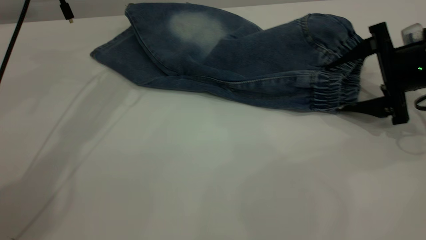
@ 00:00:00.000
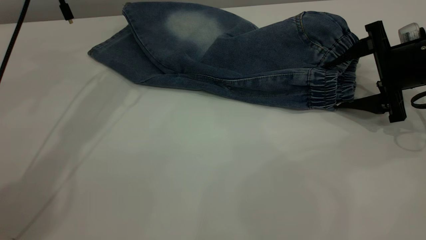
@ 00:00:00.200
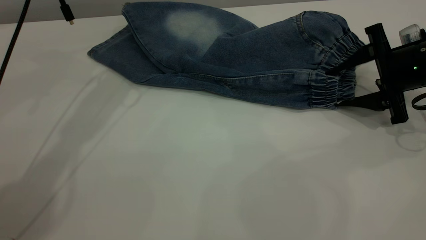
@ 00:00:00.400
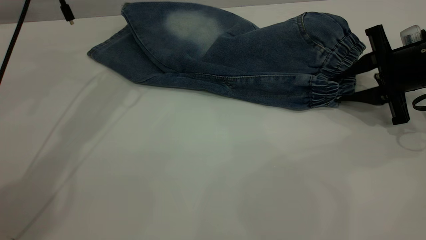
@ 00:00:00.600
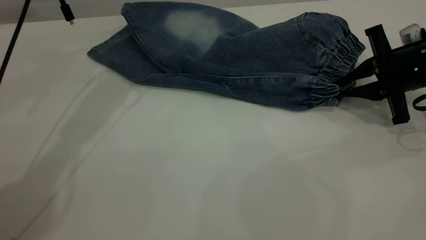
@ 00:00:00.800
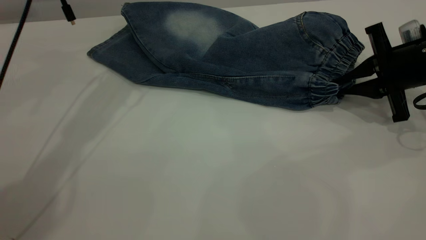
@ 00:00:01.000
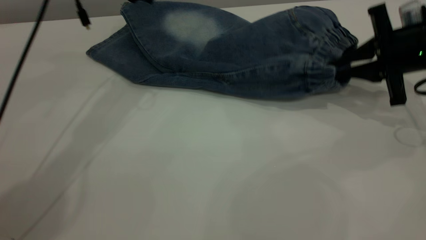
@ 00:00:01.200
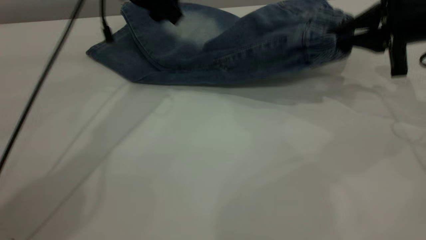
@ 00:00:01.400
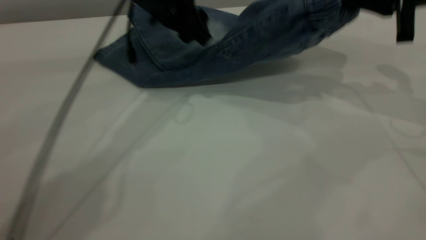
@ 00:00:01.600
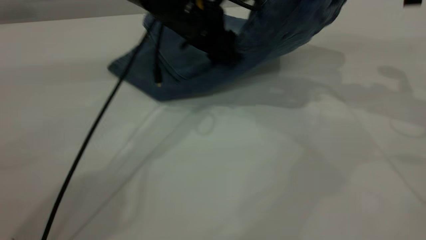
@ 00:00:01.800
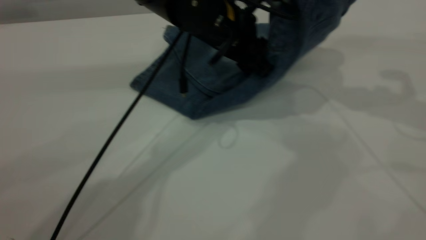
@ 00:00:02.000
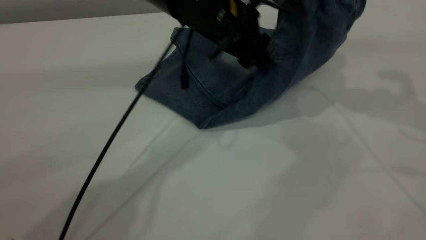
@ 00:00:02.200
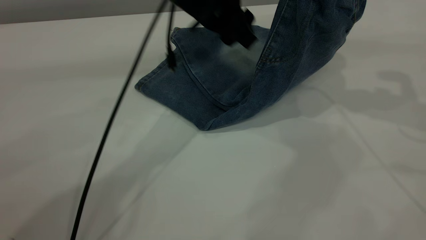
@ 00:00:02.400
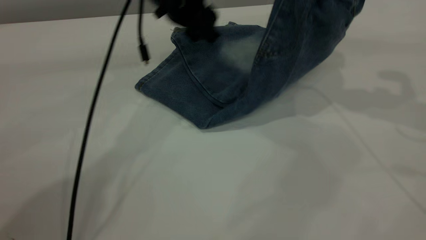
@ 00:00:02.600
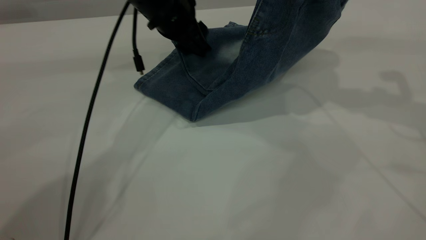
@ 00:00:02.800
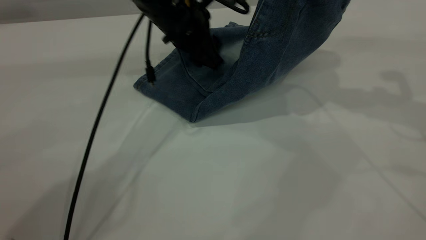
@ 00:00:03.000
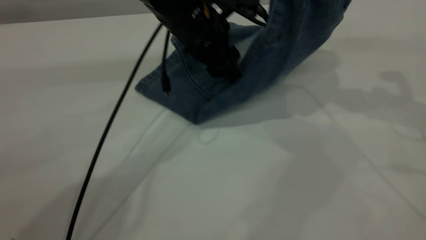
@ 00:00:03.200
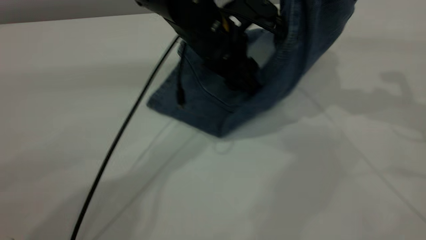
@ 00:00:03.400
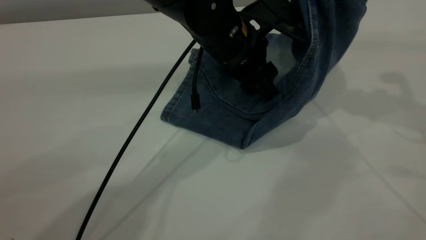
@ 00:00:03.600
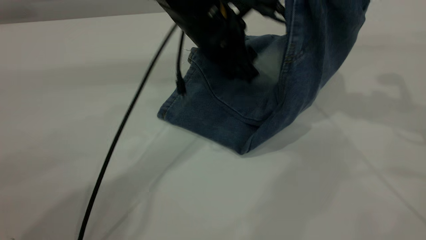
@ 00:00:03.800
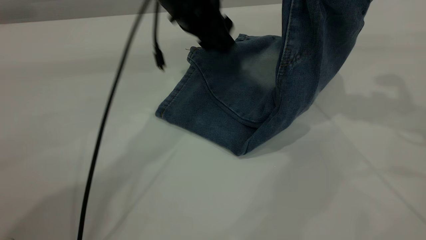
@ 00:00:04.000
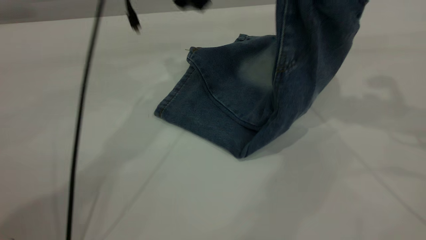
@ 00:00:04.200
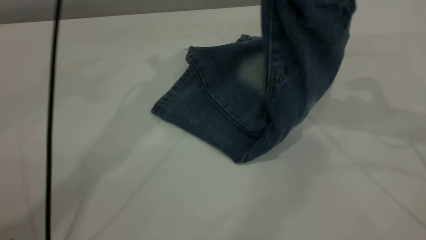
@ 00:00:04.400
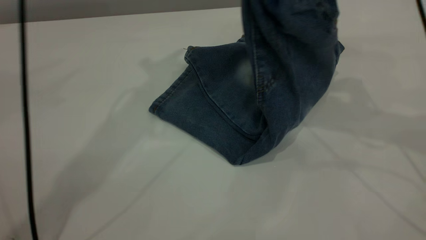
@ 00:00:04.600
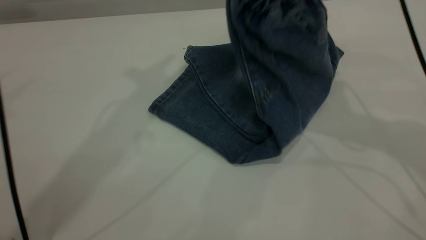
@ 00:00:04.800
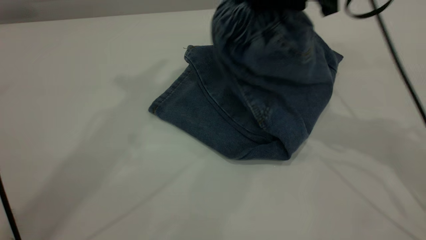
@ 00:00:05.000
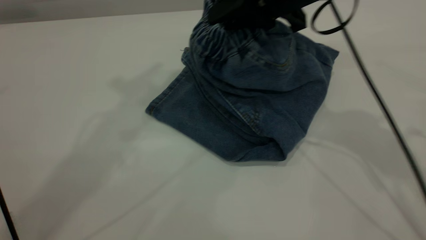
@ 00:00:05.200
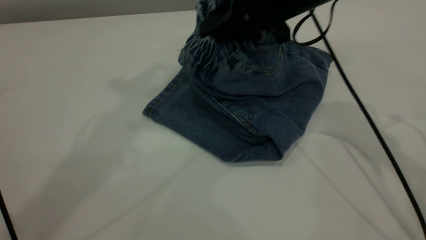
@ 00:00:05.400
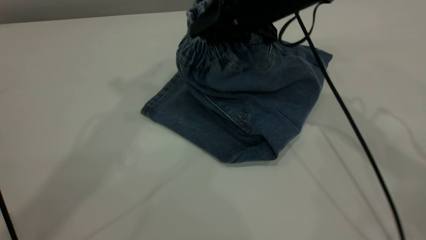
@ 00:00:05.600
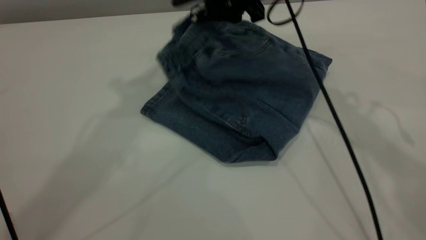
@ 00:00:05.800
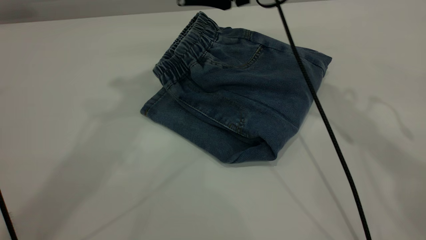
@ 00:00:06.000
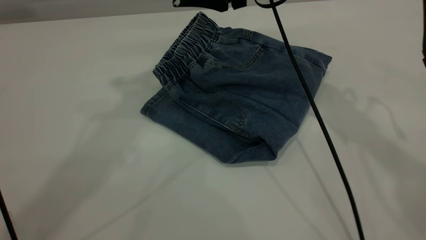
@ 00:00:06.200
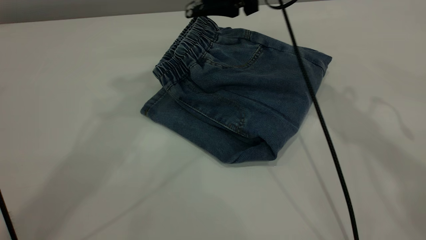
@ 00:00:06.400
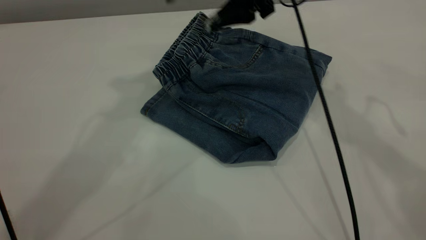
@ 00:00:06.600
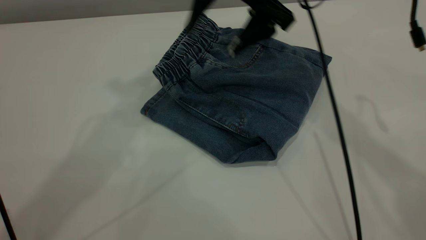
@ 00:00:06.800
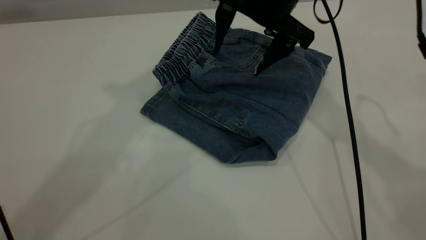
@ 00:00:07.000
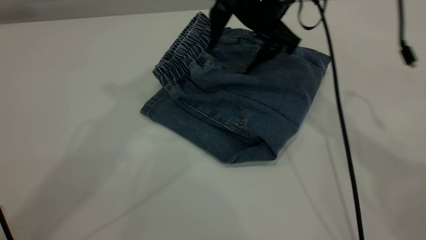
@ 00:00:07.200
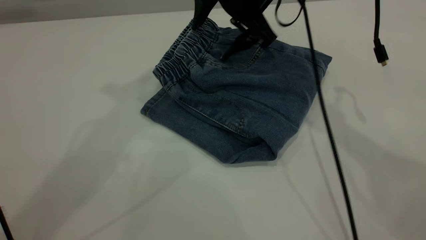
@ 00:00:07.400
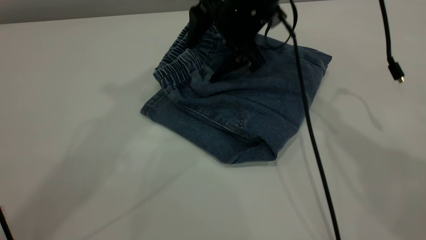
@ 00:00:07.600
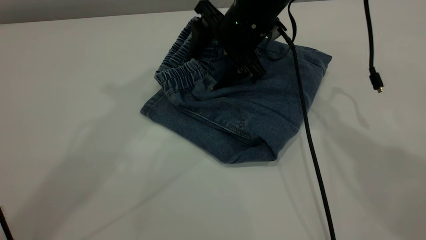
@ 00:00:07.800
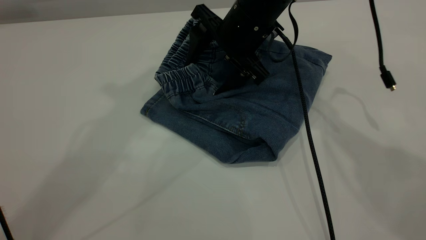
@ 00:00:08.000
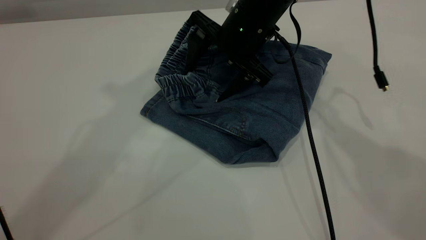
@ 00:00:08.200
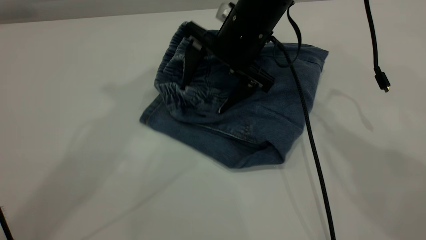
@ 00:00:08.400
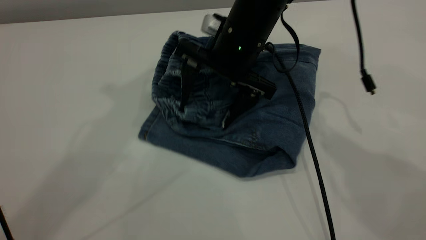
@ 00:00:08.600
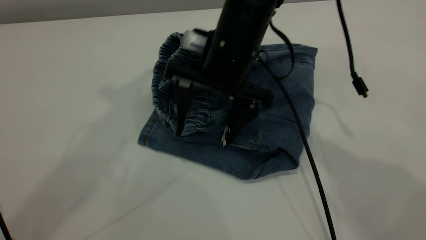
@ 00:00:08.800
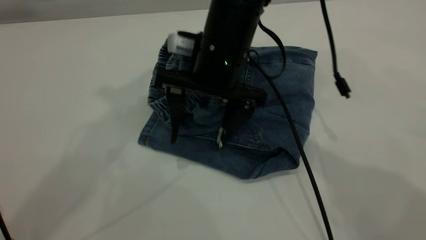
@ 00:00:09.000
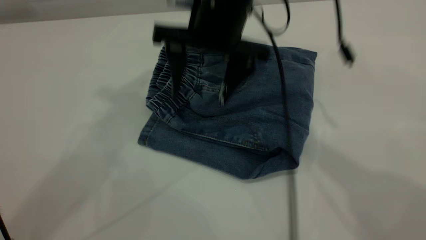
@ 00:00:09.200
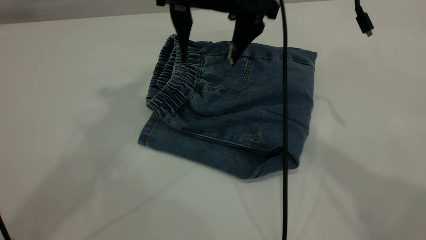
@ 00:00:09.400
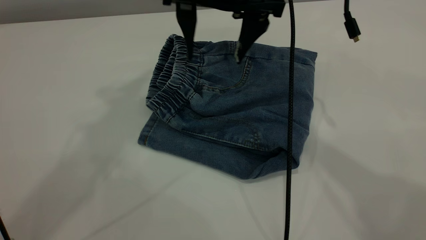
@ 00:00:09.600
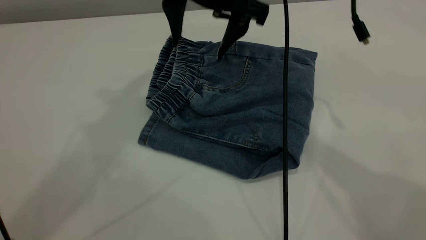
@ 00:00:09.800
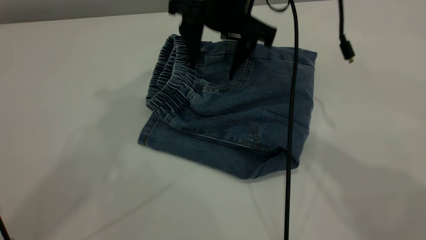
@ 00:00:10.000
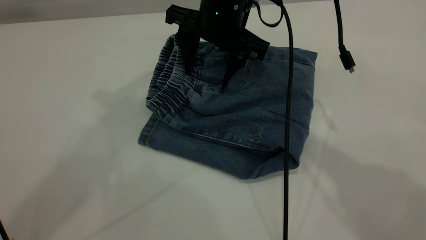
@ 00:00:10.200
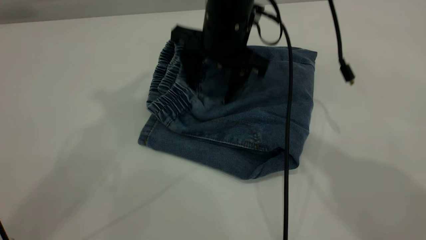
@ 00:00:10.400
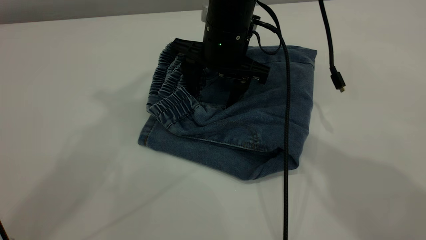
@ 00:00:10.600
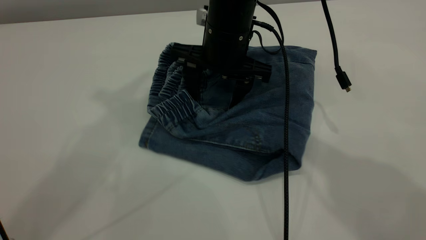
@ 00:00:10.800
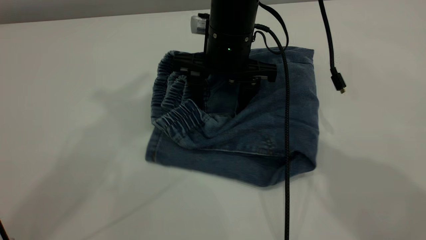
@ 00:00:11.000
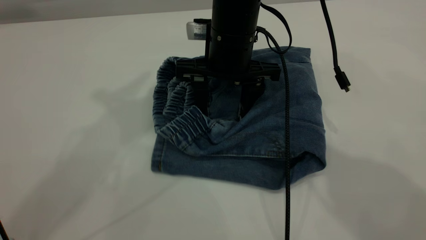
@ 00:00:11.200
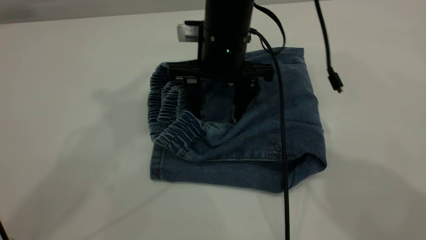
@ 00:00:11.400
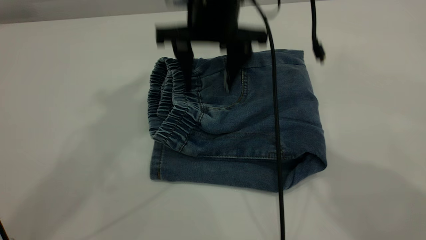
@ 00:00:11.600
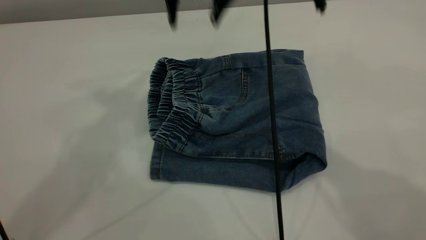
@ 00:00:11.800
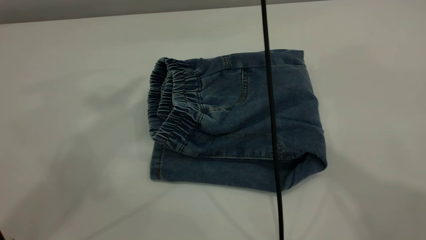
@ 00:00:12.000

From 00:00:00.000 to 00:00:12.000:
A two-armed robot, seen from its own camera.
Step, from 00:00:00.000 to 00:00:06.000: Fold your pants from right to left.
From 00:00:00.000 to 00:00:01.600: The left gripper travels to the right and downward by about 15 cm. The right gripper heads upward, covering some 10 cm, and closes up.
From 00:00:01.600 to 00:00:03.000: The right gripper moves upward, approximately 5 cm. Meanwhile the left gripper goes to the right and returns, roughly 10 cm each way.
From 00:00:03.000 to 00:00:04.400: The left gripper heads upward, covering approximately 15 cm.
From 00:00:04.400 to 00:00:06.000: The right gripper goes roughly 15 cm to the left and forward, and opens up. The left gripper goes some 15 cm upward and backward.
From 00:00:06.000 to 00:00:07.600: The right gripper travels downward by roughly 10 cm.
From 00:00:07.600 to 00:00:09.000: The right gripper heads backward, covering roughly 10 cm.
From 00:00:09.000 to 00:00:10.400: The right gripper travels forward by approximately 5 cm, and travels upward and back again, some 10 cm each way.
From 00:00:10.400 to 00:00:12.000: The right gripper travels upward by some 25 cm.

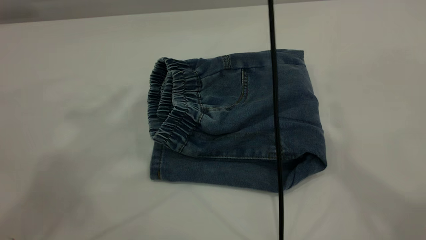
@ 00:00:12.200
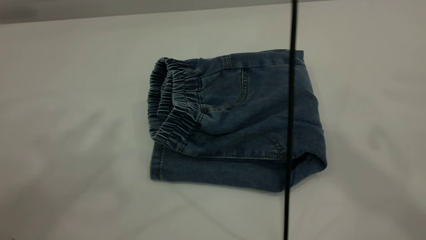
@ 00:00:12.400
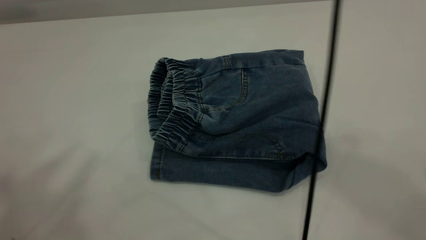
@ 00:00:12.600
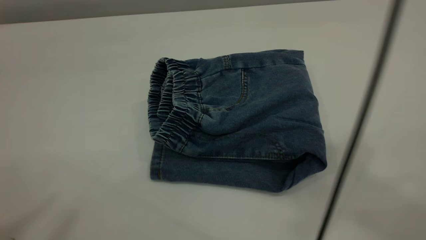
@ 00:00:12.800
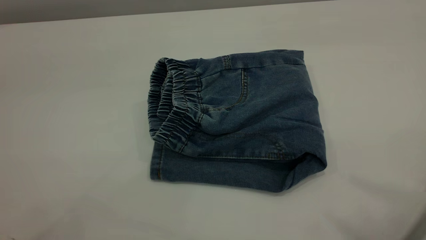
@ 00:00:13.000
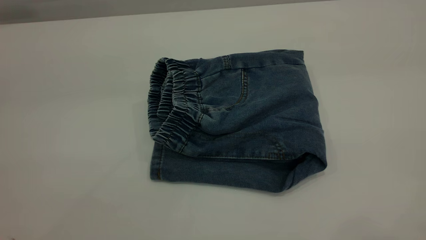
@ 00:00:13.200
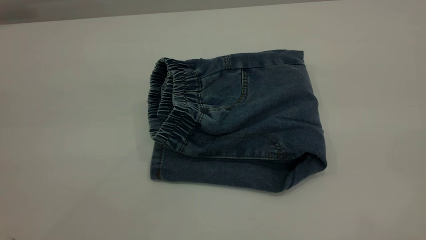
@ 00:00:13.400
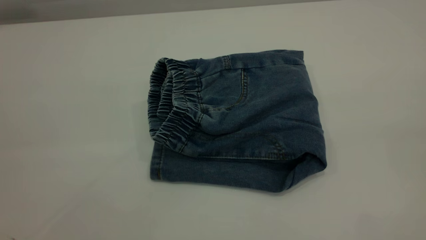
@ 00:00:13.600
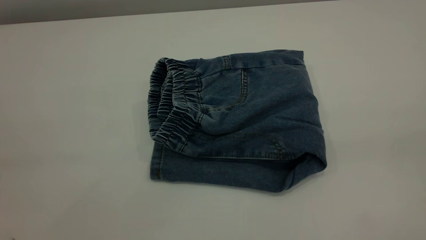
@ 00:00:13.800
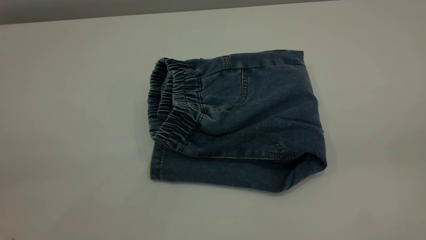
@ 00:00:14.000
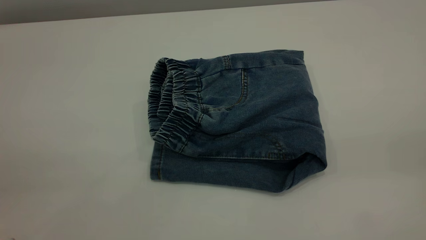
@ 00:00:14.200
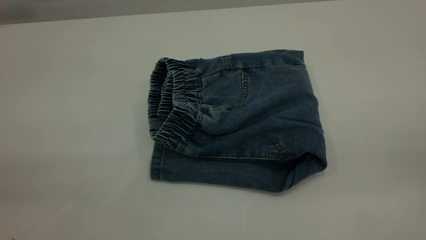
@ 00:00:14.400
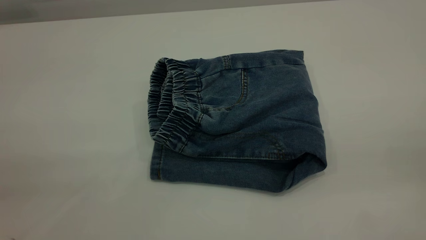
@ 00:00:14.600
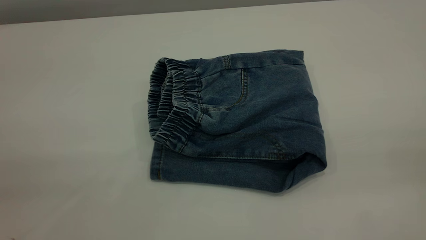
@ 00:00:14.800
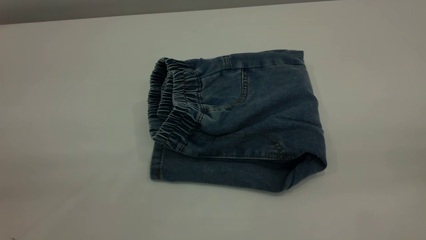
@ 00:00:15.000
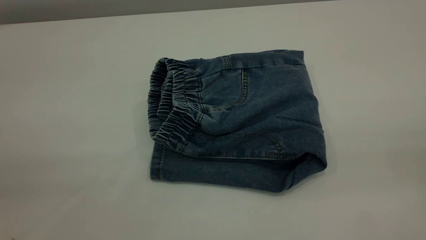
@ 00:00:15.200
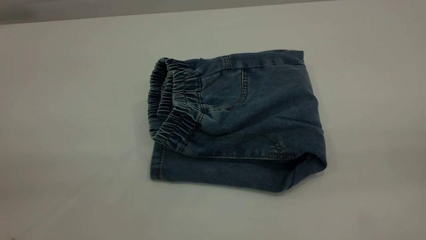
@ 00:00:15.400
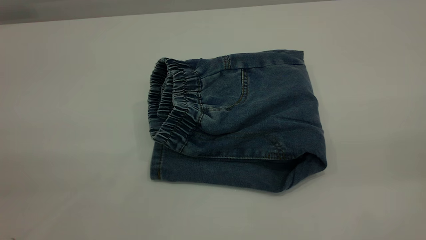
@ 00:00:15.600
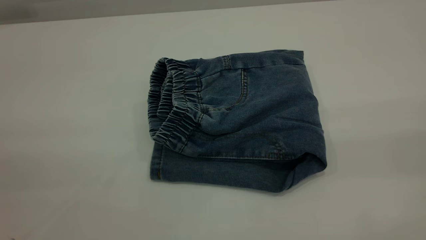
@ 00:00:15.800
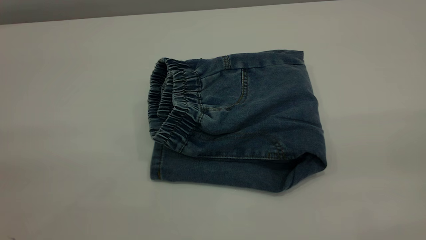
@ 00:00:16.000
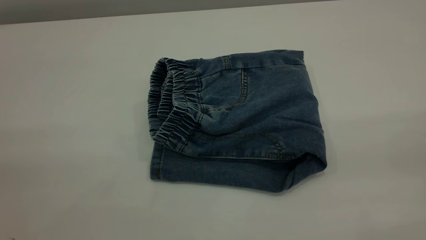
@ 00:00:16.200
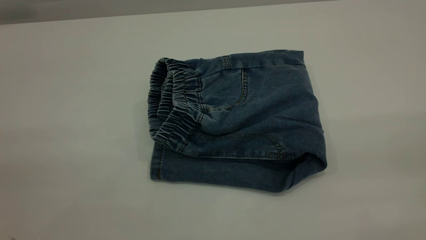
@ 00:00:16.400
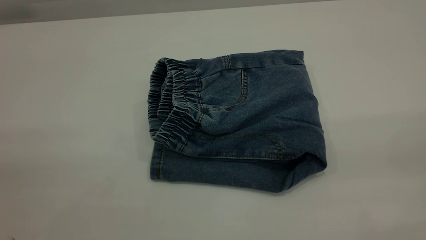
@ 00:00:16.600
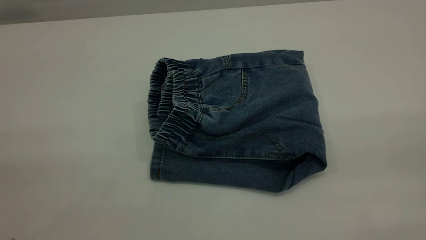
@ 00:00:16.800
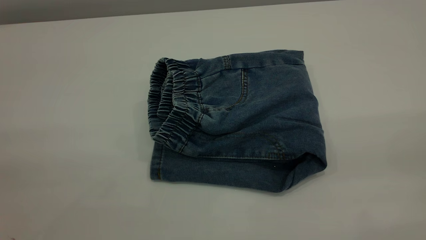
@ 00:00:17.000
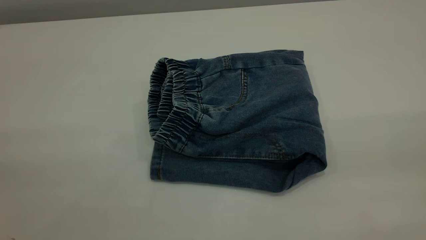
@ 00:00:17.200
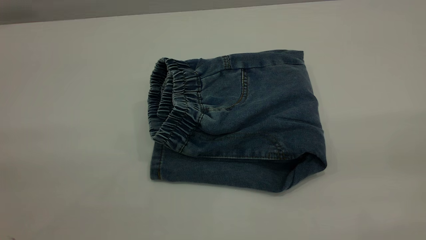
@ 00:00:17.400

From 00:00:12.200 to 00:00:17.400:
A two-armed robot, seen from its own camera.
From 00:00:12.200 to 00:00:14.000: The right gripper goes roughly 40 cm backward and to the right, while the left gripper shifts about 30 cm backward and downward.
